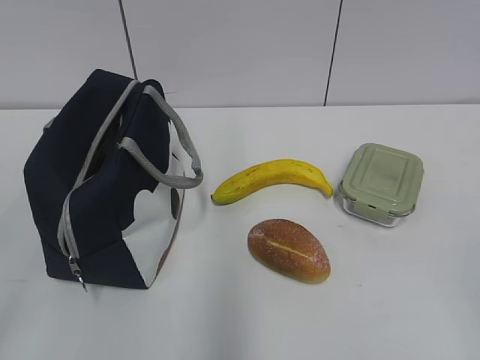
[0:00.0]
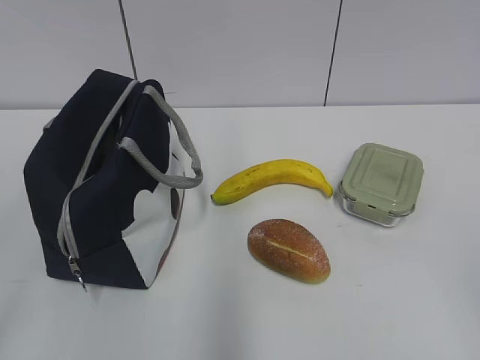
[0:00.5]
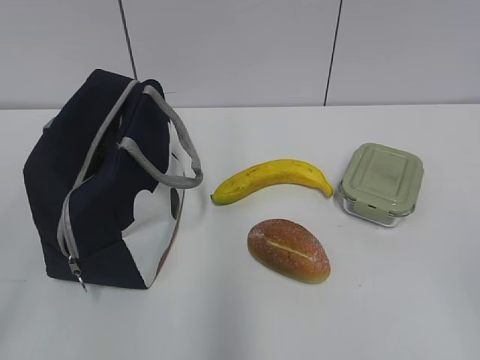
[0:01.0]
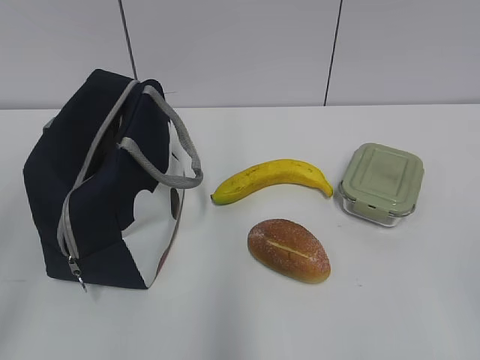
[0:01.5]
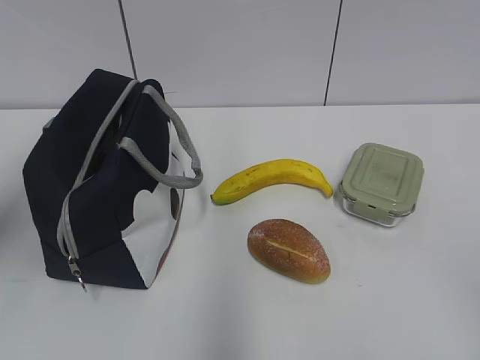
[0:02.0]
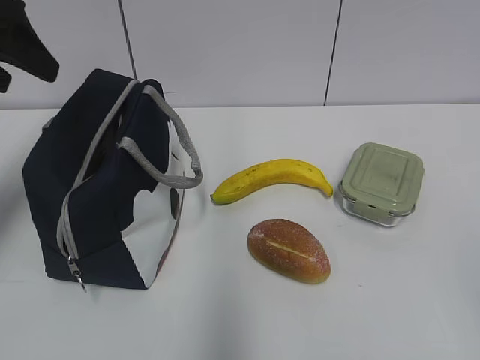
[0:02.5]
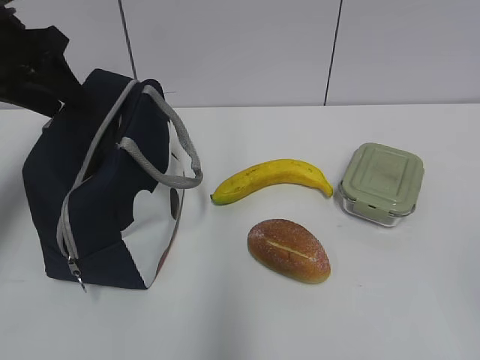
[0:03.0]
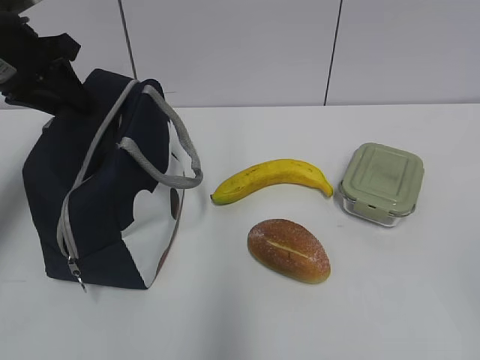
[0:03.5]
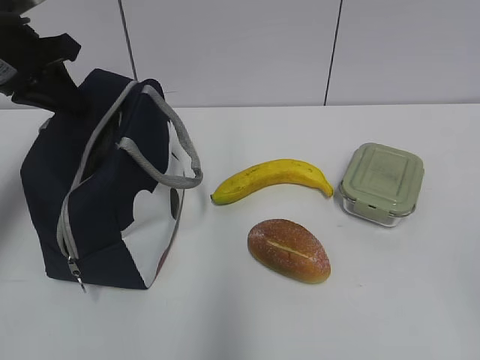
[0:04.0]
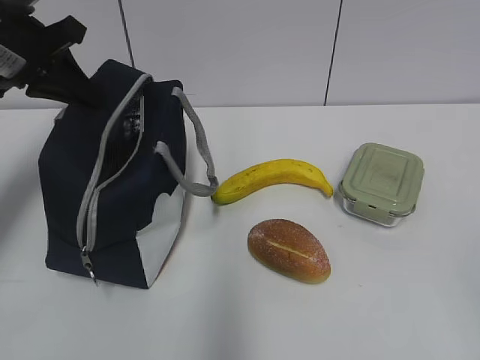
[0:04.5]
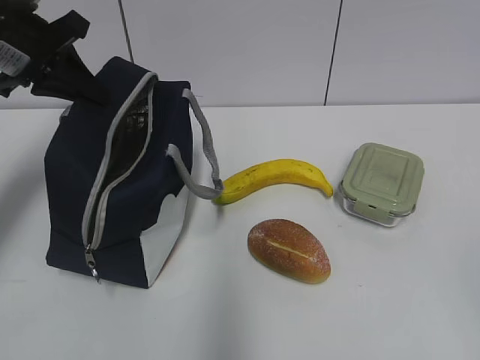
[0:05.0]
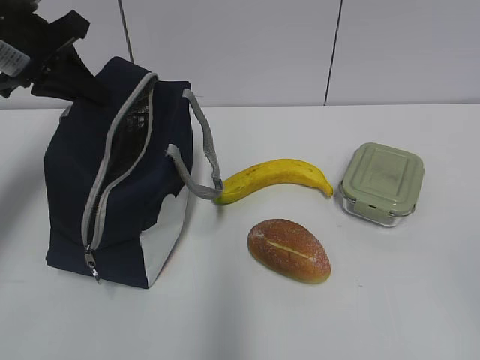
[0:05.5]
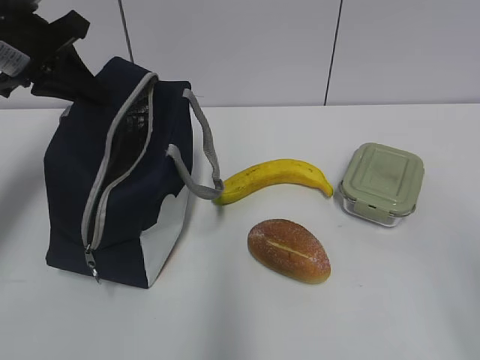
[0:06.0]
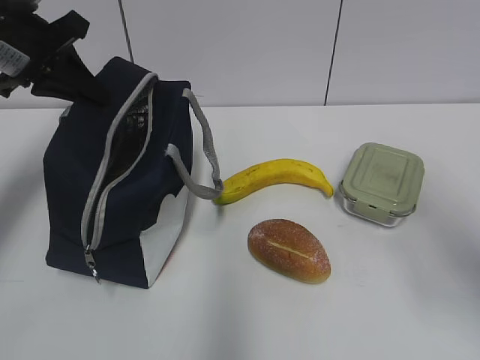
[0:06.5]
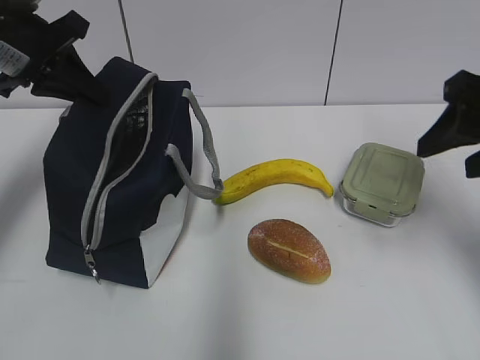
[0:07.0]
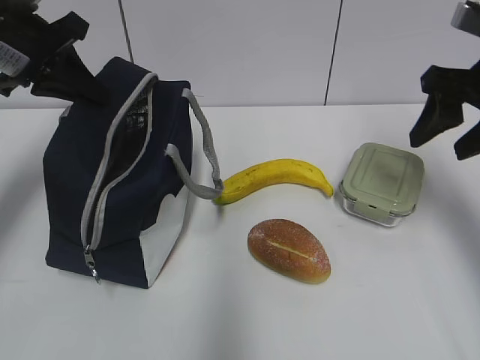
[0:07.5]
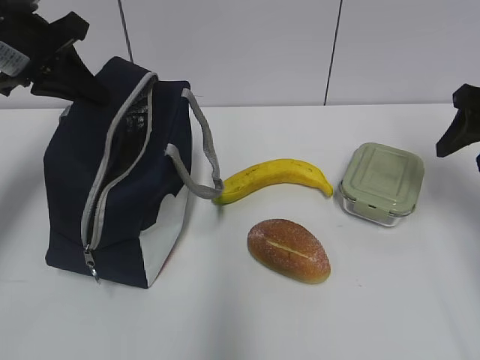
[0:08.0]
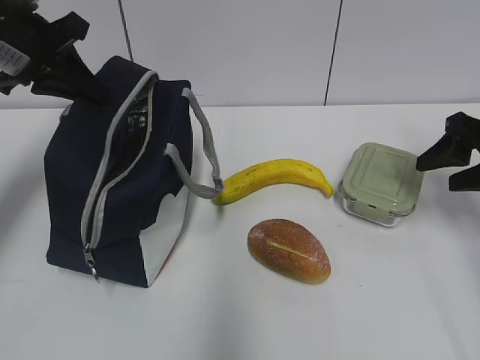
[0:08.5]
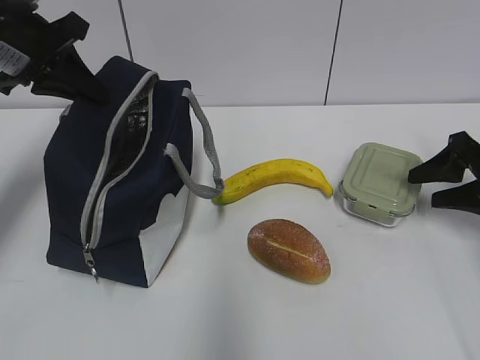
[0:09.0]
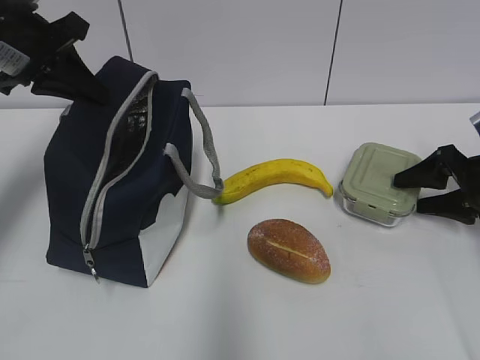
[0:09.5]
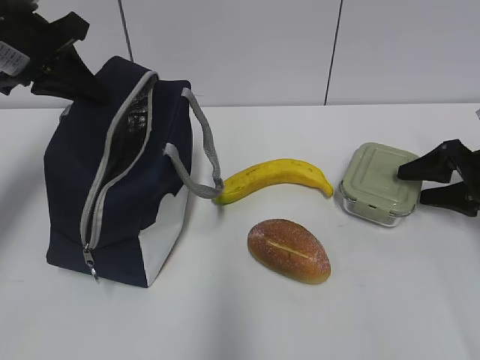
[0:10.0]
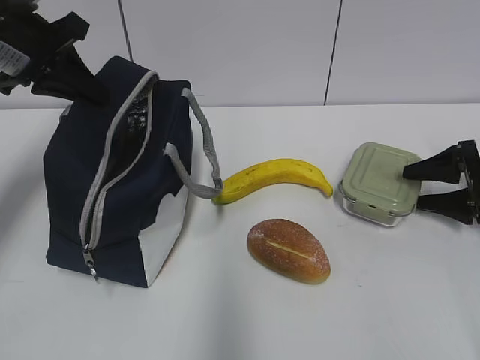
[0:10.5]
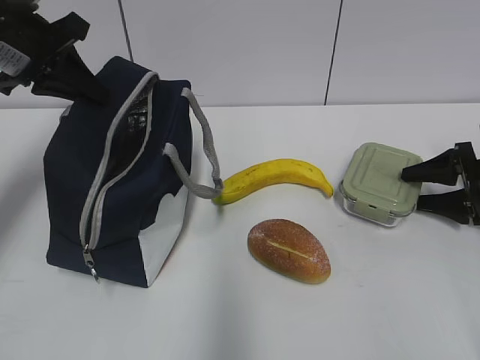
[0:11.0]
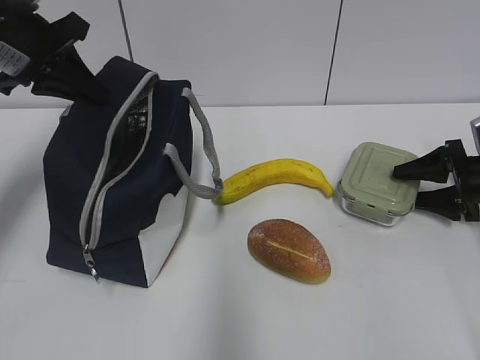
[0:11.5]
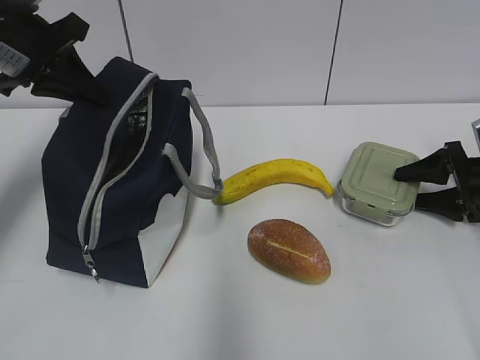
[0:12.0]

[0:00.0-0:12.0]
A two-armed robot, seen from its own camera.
Step, 0:00.0 to 0:03.0: Grab the lunch bag with your left hand.
0:02.0 to 0:04.0: The left gripper shifts approximately 20 cm forward and downward, and closes its fingers.
0:04.0 to 0:06.0: The right gripper moves forward, some 5 cm.
0:06.0 to 0:08.0: The right gripper moves forward, roughly 30 cm.
0:08.0 to 0:10.0: The right gripper travels downward by some 15 cm.
0:10.0 to 0:12.0: The grippers stay close to where they were, moving slightly.

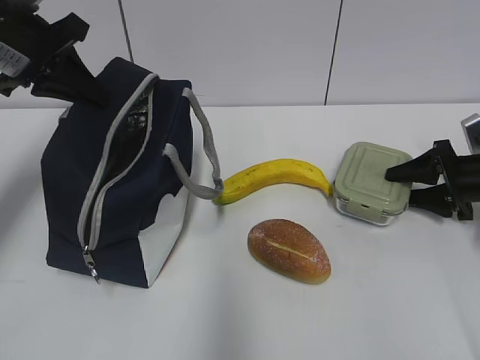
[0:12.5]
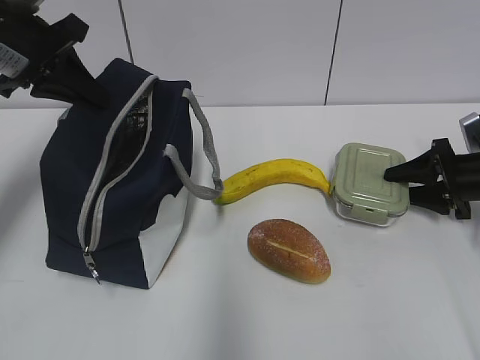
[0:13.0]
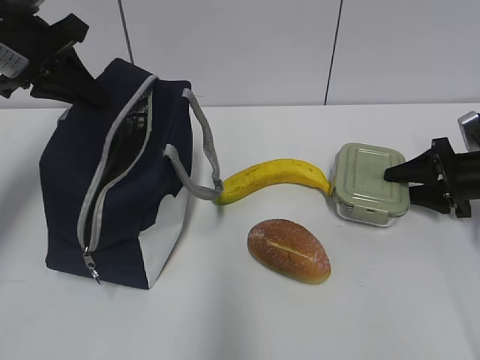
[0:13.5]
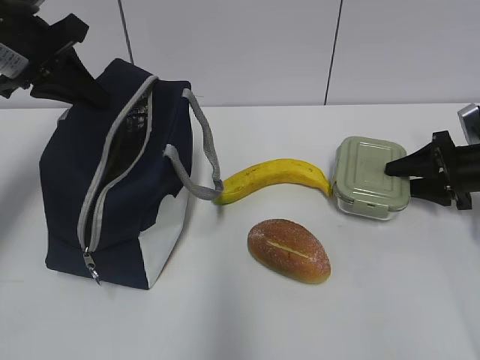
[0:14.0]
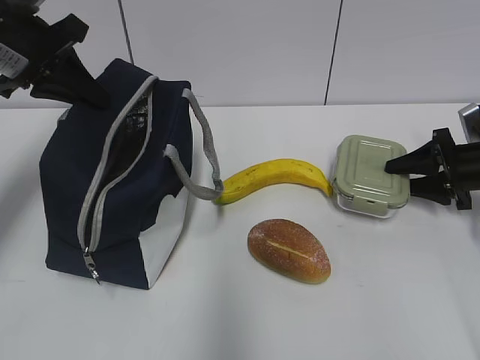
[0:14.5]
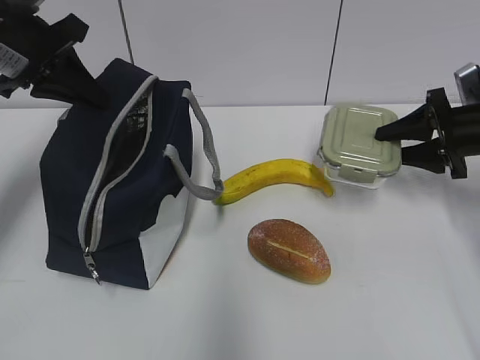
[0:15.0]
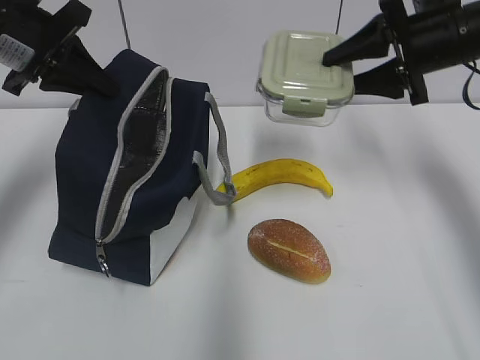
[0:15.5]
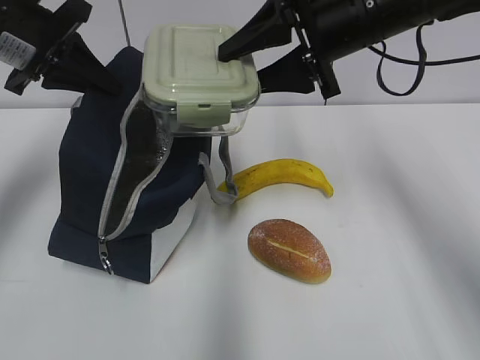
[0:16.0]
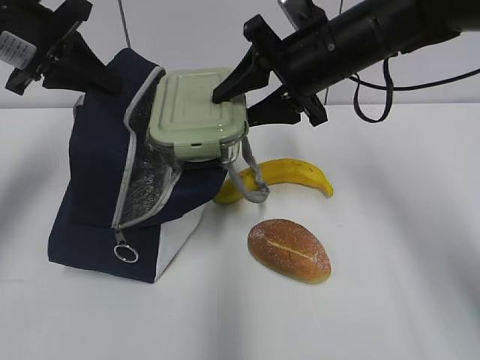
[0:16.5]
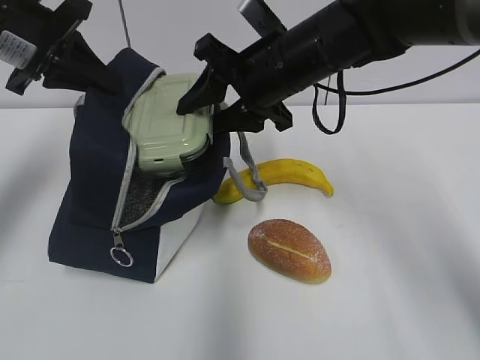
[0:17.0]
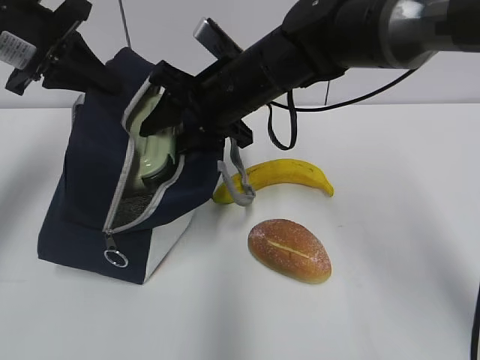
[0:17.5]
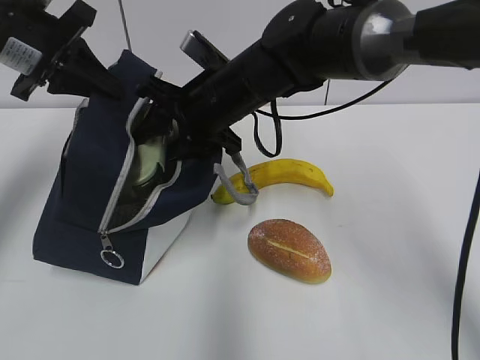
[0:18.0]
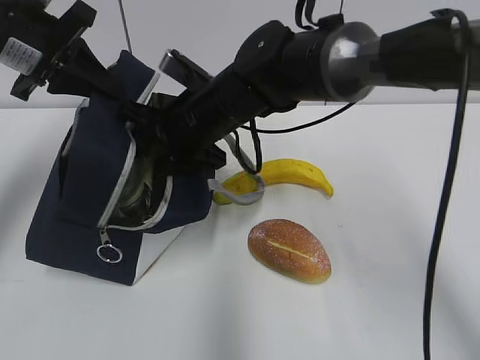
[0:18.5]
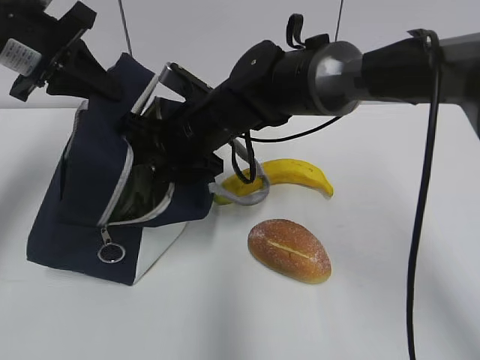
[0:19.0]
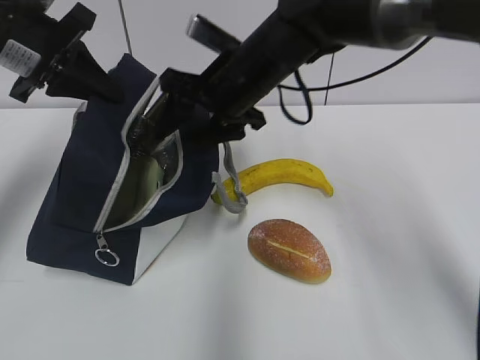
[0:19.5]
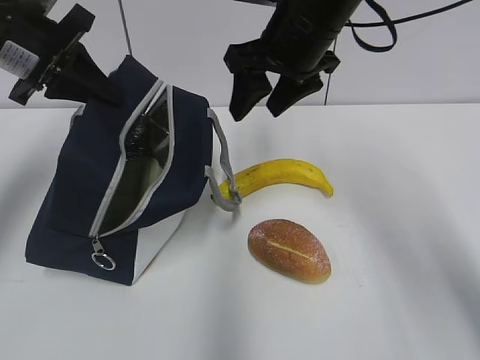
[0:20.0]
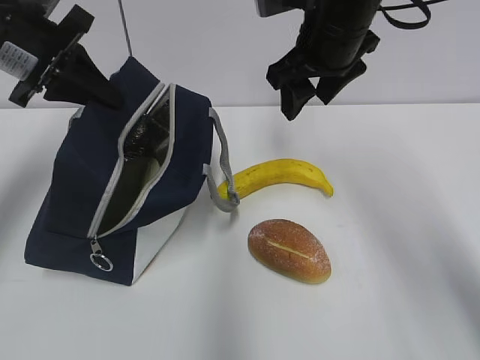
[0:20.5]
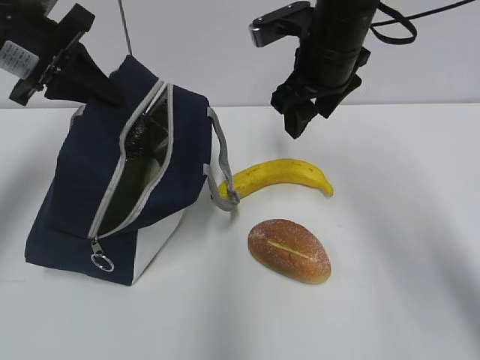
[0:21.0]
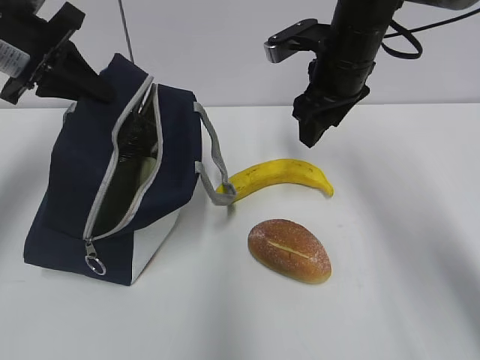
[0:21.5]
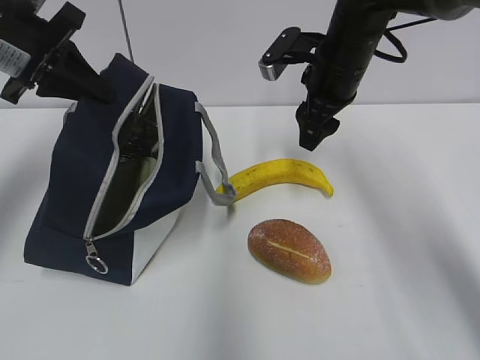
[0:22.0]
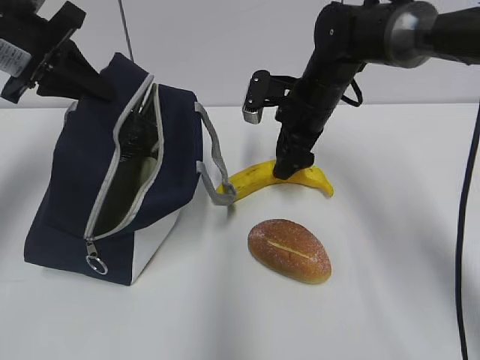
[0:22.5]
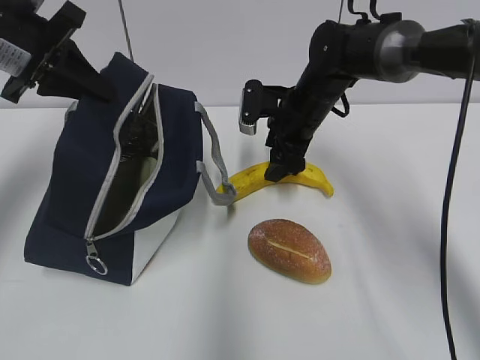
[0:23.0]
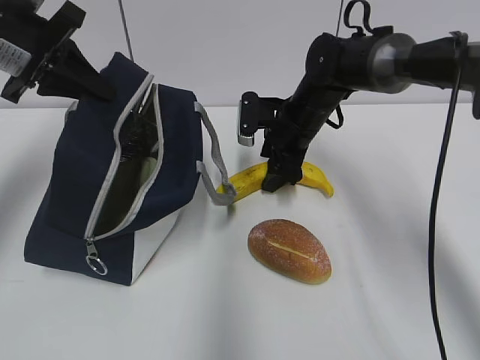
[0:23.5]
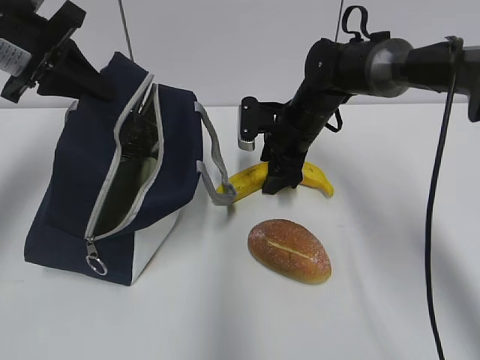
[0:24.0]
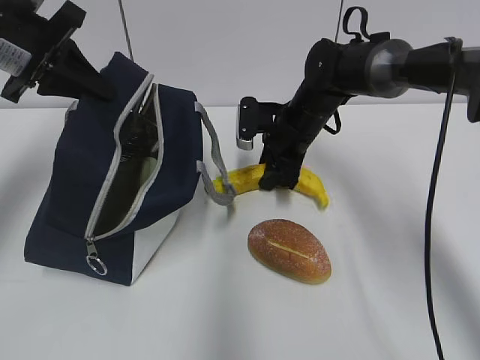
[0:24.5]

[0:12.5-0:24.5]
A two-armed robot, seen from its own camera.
Step, 0:12.5 to 0:14.5: Grab the lunch box with your right hand.
Step, 0:15.0 to 0:19.0: Place it into the bag with your right hand.
0:12.5 to 0:14.5: There are only small adjustments of the grippers.
0:14.5 to 0:16.5: The right gripper goes about 30 cm to the left and upward.
0:16.5 to 0:18.5: The right gripper moves to the left and downward, about 15 cm.
0:18.5 to 0:20.5: The right gripper travels to the right and upward by some 15 cm.
0:20.5 to 0:22.5: The right gripper shifts about 15 cm downward and forward.
0:22.5 to 0:24.5: The right gripper closes up.

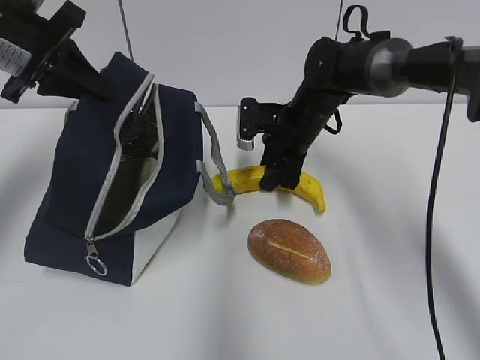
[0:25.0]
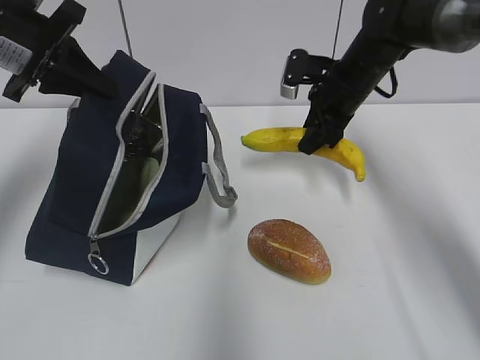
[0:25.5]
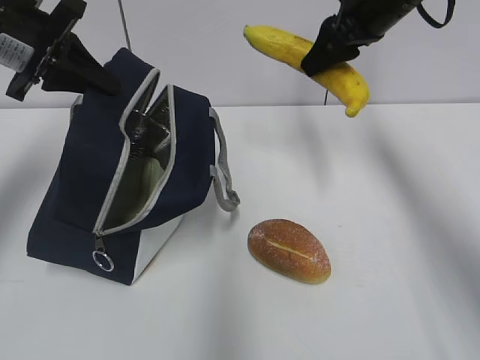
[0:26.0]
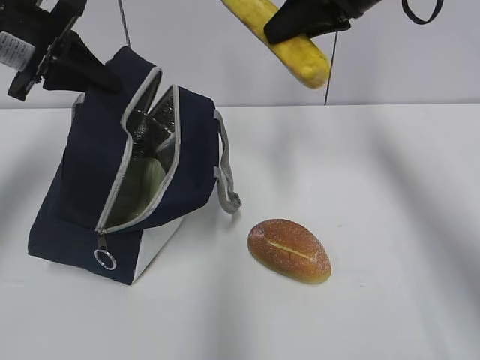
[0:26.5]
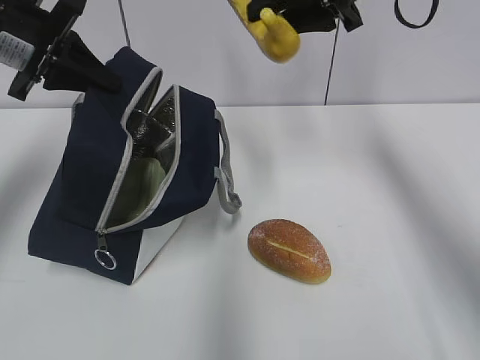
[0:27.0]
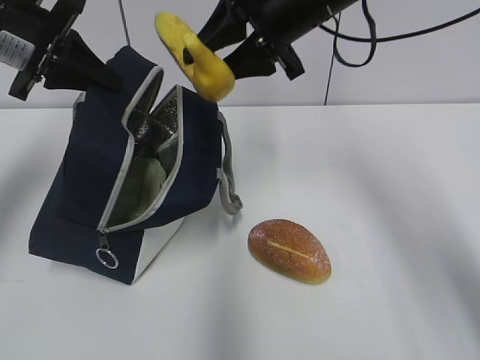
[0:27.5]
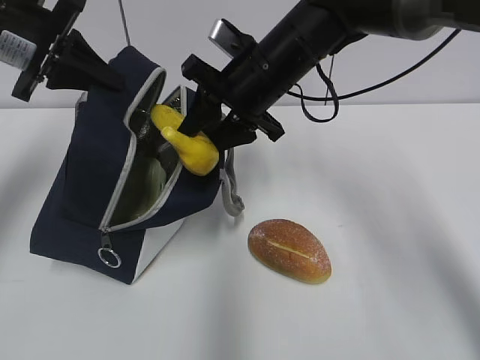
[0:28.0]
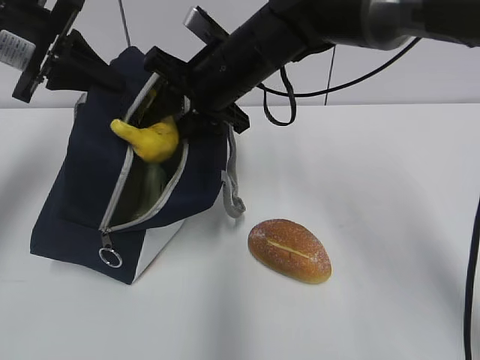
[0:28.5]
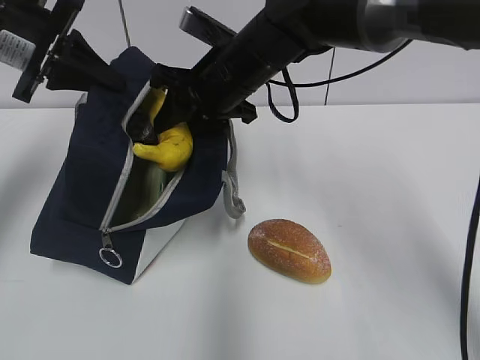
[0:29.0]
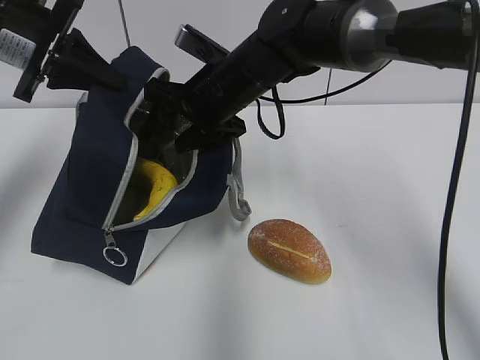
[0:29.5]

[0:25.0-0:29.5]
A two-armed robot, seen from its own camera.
0:25.0 to 0:27.0: The right gripper is displaced upward by roughly 20 cm.
0:27.0 to 0:29.5: The right gripper shifts roughly 20 cm to the left and downward.
